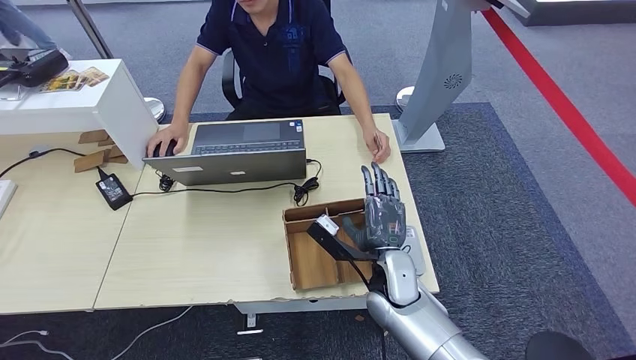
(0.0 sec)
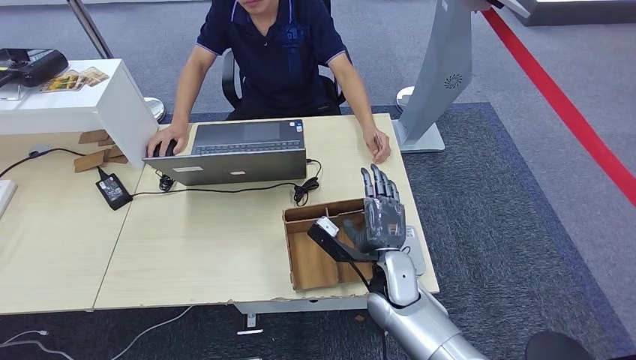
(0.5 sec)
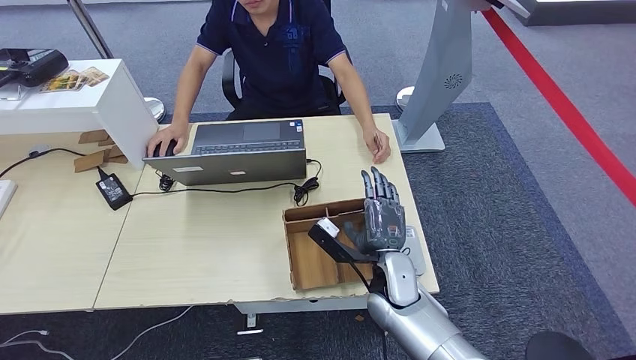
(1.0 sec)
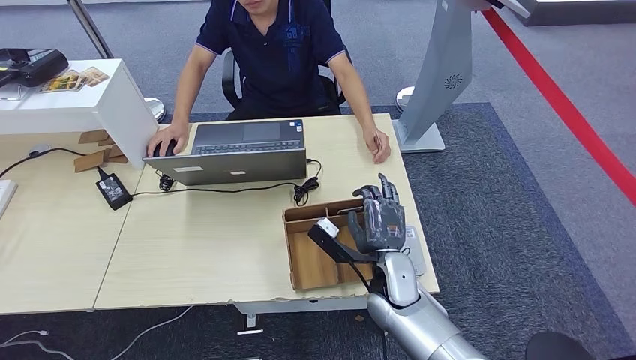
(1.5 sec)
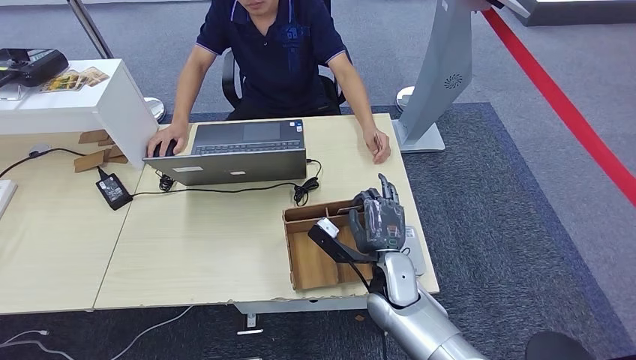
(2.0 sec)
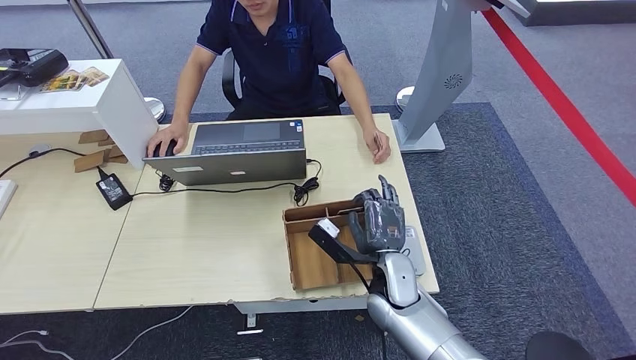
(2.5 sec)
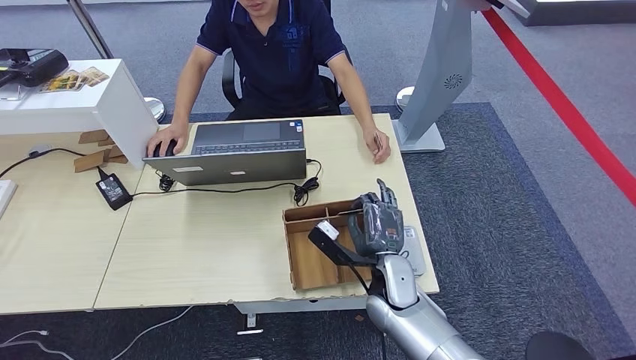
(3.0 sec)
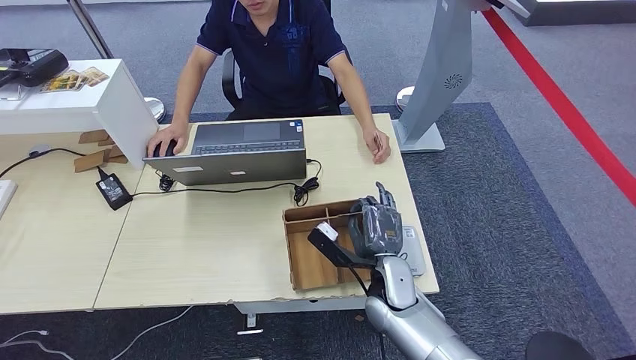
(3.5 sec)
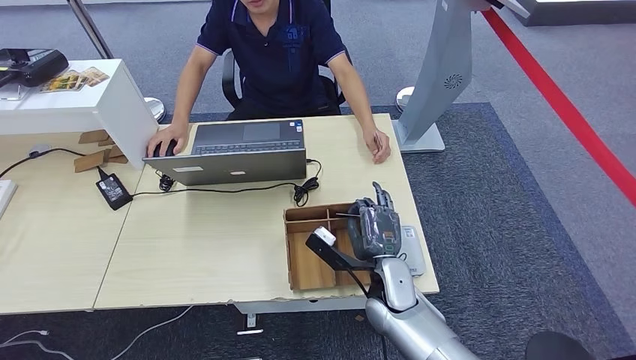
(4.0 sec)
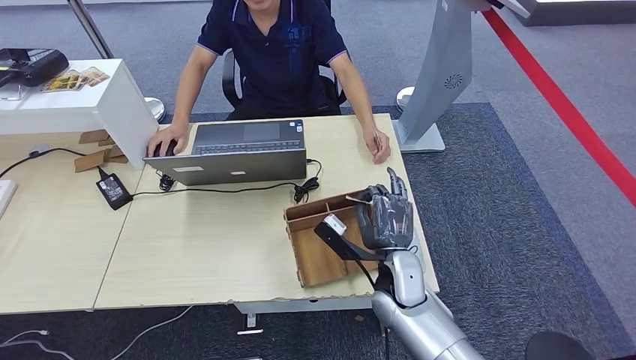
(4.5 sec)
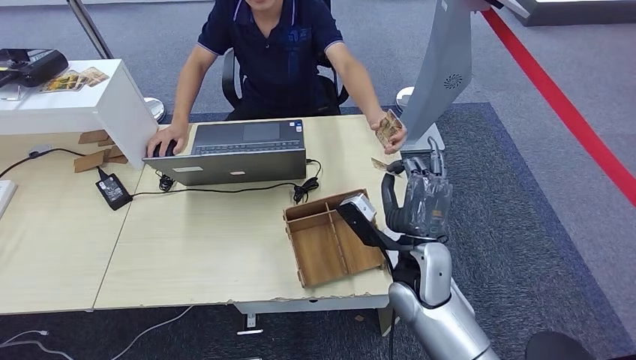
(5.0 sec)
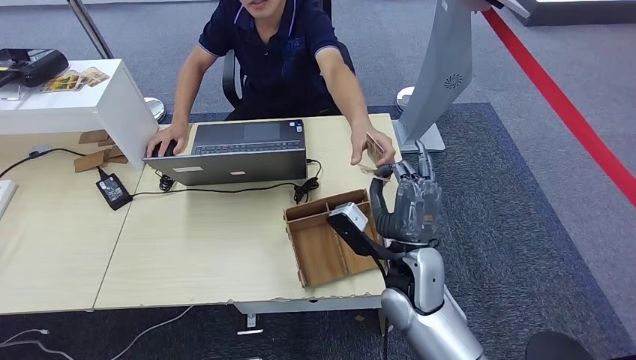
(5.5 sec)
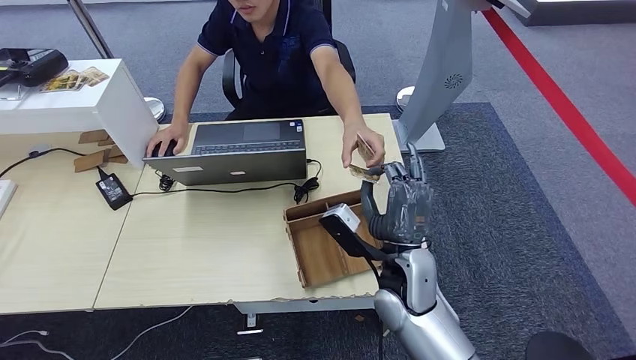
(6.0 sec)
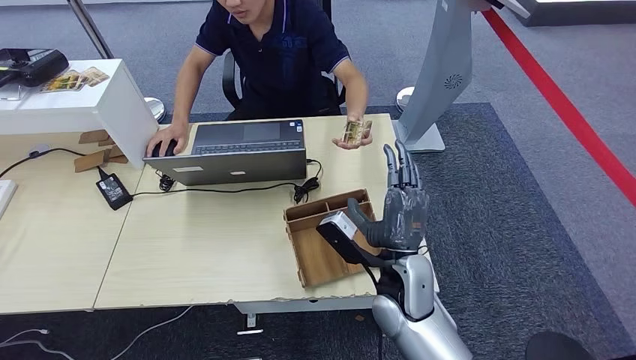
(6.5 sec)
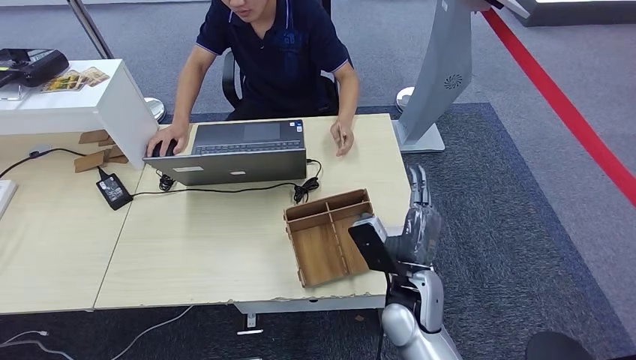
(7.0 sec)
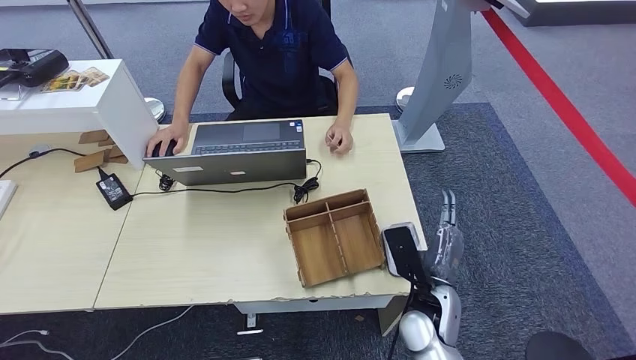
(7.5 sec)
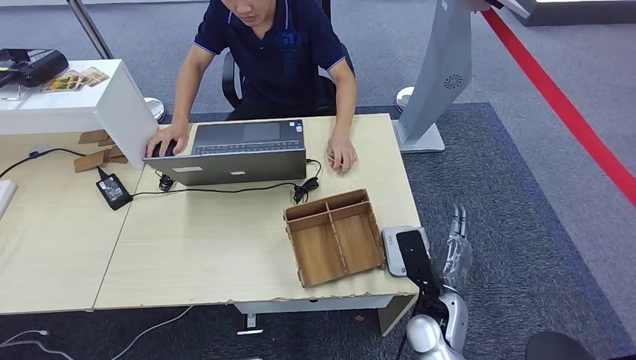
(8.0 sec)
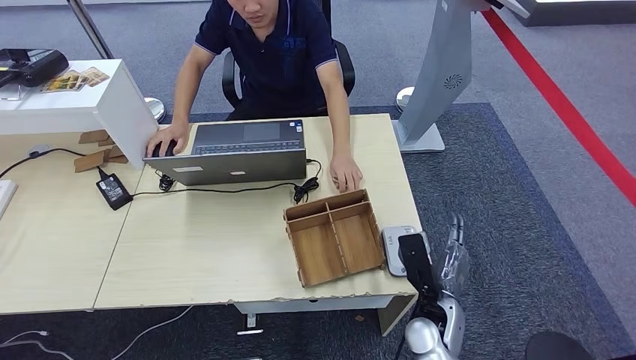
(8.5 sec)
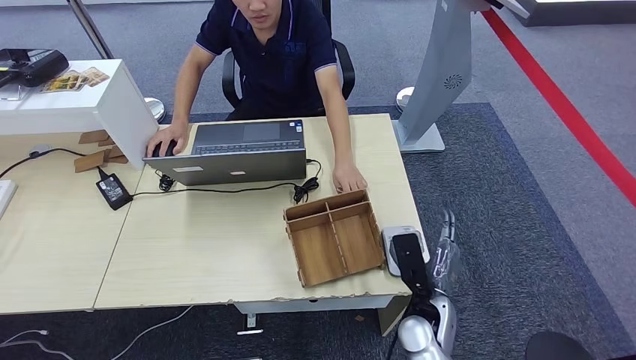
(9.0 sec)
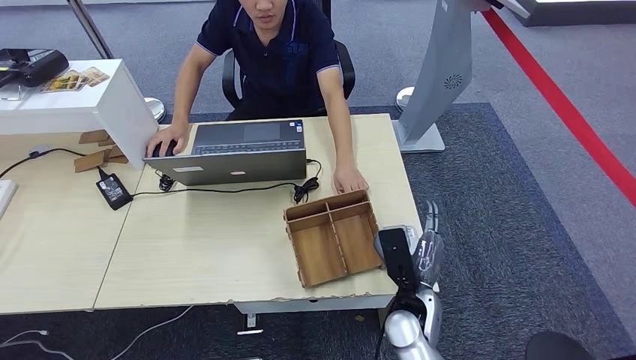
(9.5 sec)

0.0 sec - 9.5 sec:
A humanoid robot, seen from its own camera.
Step, 0.0 sec - 5.5 sec: Pick up the room key from the key card box.
Step, 6.0 sec - 9.5 sec: Hand the room key to the person.
0.0 sec - 2.0 sec: Both hands stay about where they are.
2.0 sec - 4.0 sec: The hands stay close to where they were, moving slightly.
4.0 sec - 5.5 sec: The right hand goes roughly 10 cm upward.
5.5 sec - 7.5 sec: The right hand shifts approximately 10 cm downward.
7.5 sec - 9.5 sec: The hands make only small movements.
